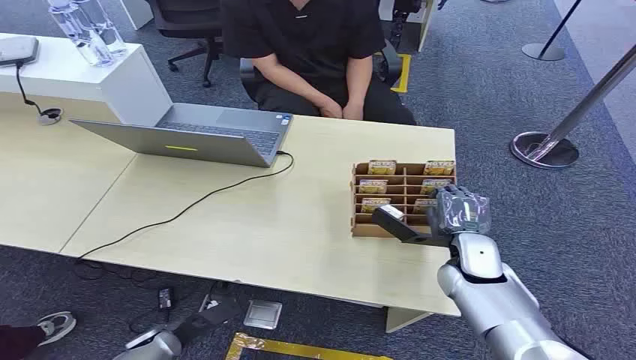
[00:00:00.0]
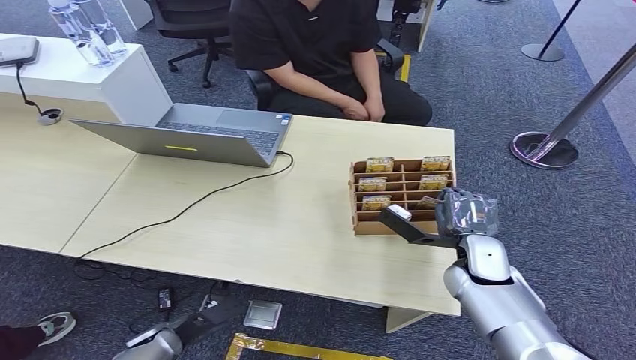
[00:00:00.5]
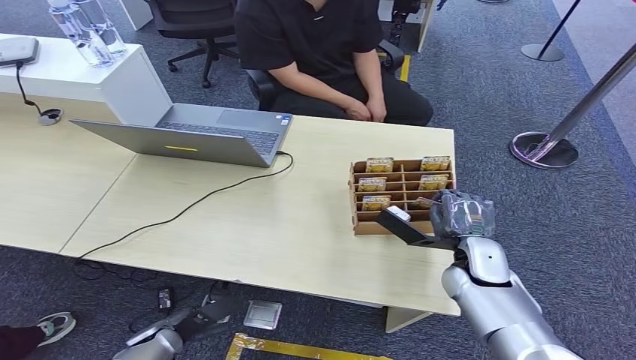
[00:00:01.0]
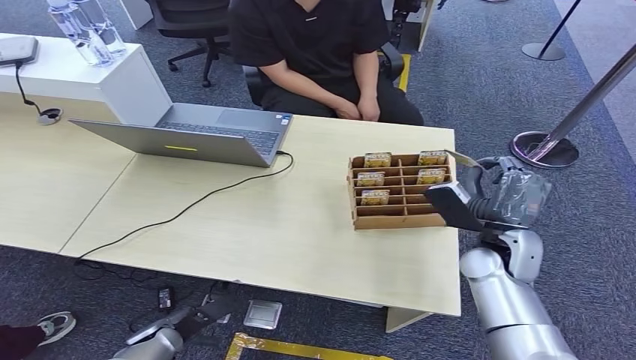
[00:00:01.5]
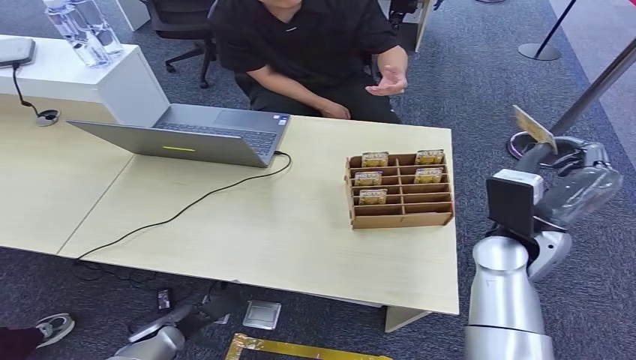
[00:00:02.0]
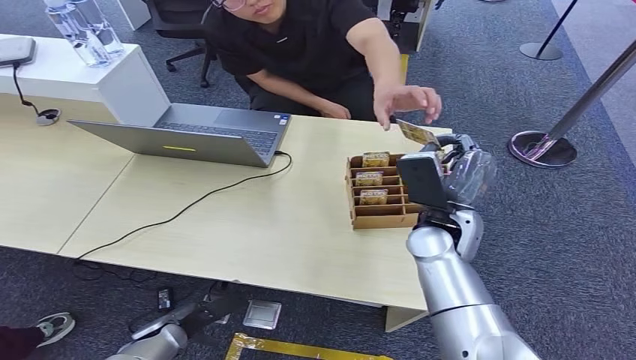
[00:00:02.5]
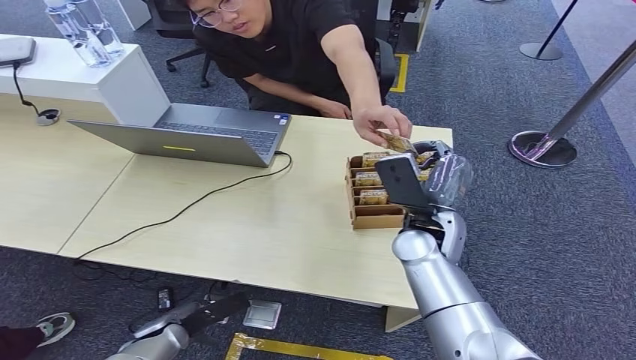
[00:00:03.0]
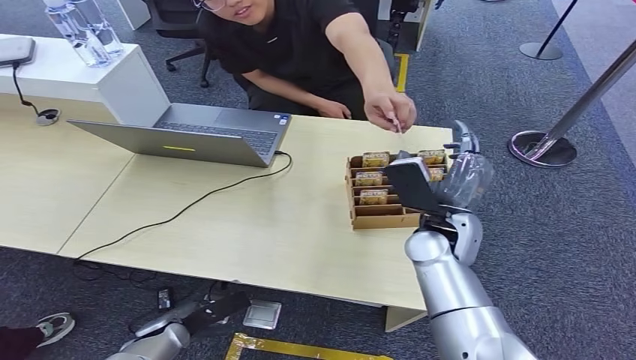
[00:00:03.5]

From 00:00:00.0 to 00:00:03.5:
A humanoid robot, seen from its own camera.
Step, from 00:00:00.0 to 00:00:01.5: Pick up the room card from the card holder.
Step, from 00:00:02.5 to 00:00:03.5: Hand the room card to the target.
From 00:00:02.0 to 00:00:03.5: The right hand moves to the left, about 5 cm.

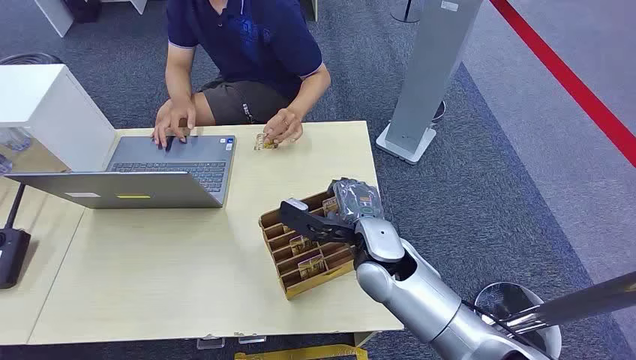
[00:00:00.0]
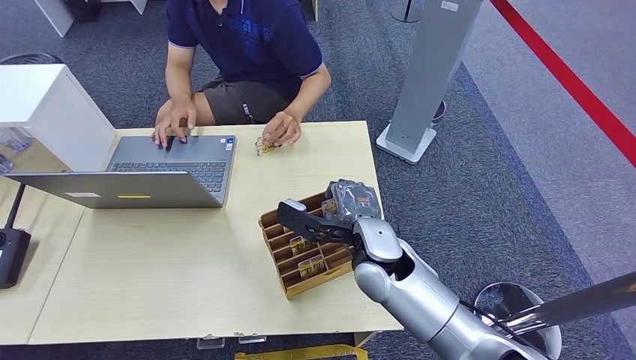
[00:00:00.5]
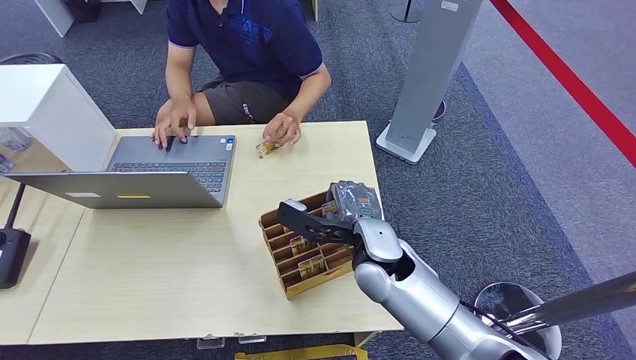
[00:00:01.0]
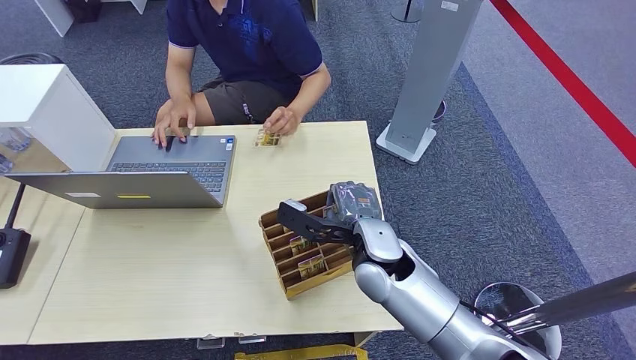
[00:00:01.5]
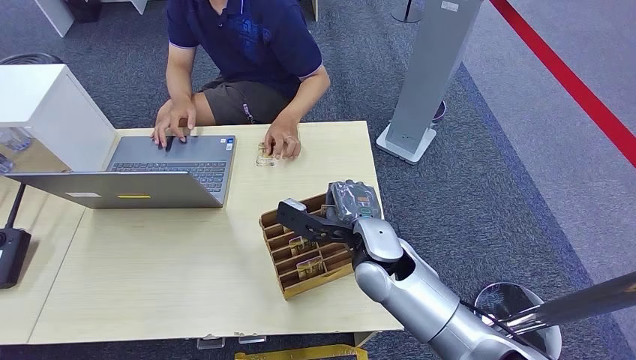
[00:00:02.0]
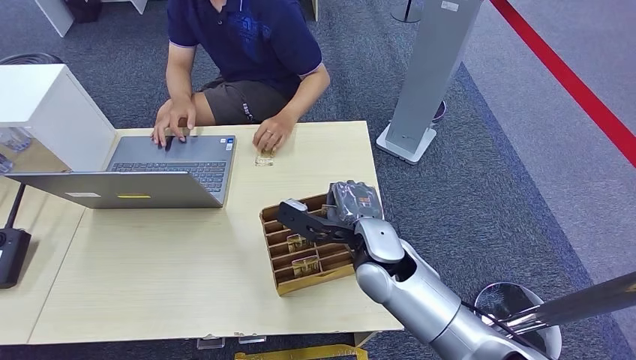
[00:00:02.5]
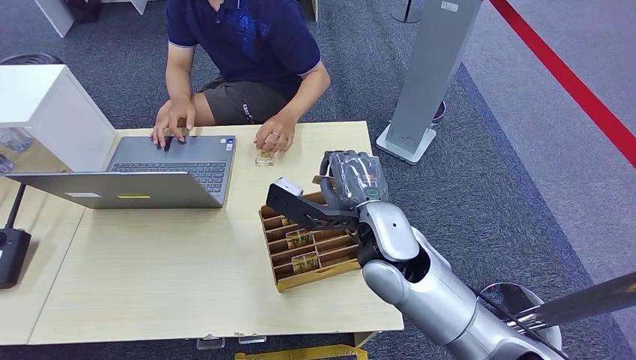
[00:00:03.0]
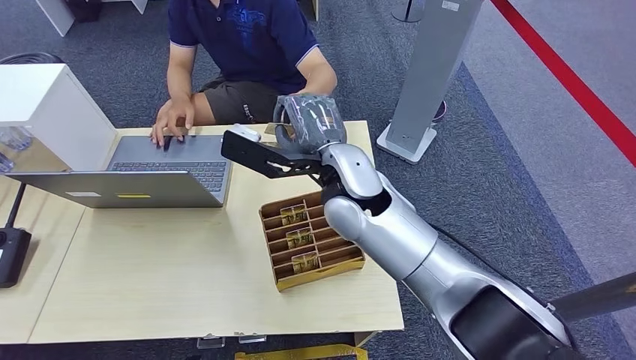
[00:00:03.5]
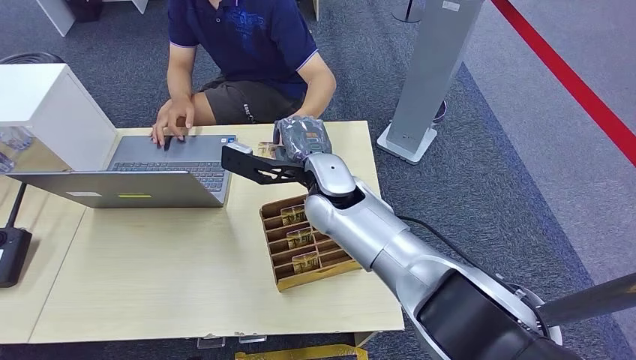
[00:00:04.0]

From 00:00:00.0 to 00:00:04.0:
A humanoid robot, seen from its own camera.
Step, from 00:00:00.0 to 00:00:02.5: Pick up the room card from the card holder.
Step, from 00:00:03.5 to 00:00:04.0: Hand the room card to the target.
From 00:00:02.0 to 00:00:04.0: The right hand goes about 15 cm forward, upward and to the left.
